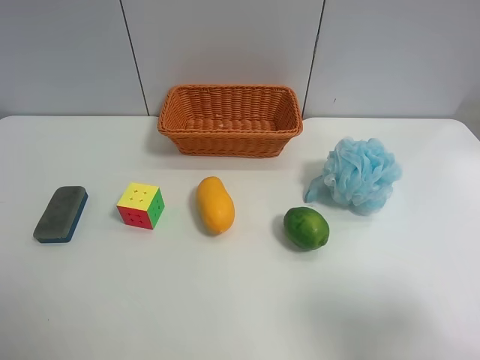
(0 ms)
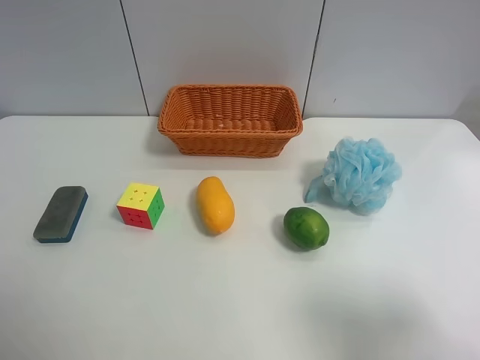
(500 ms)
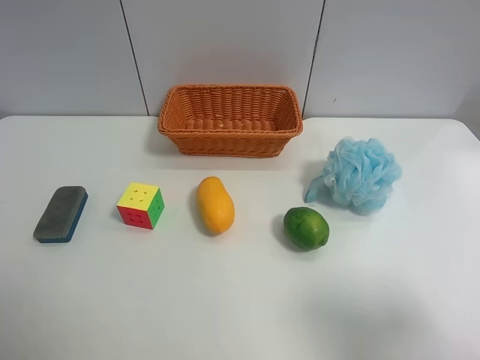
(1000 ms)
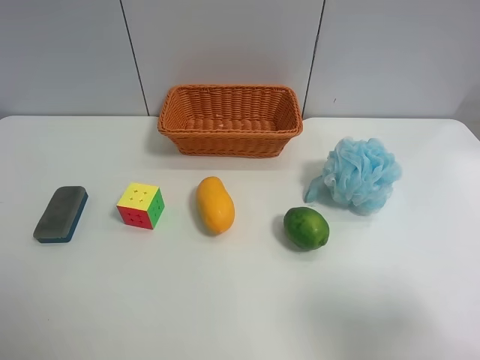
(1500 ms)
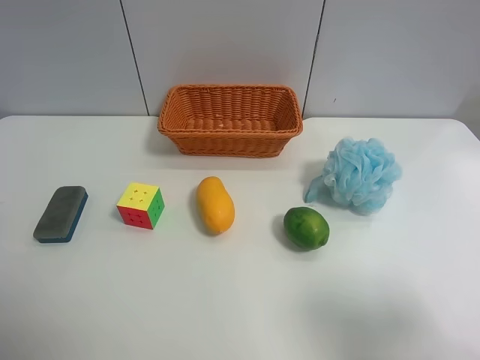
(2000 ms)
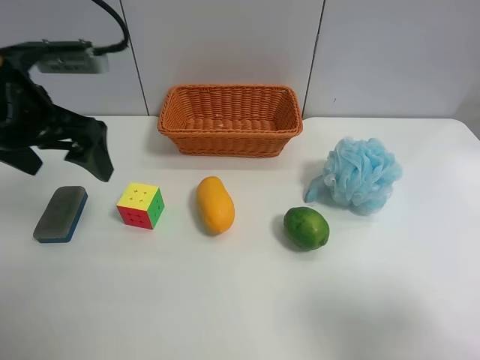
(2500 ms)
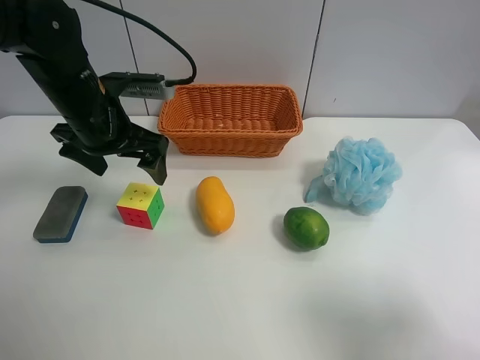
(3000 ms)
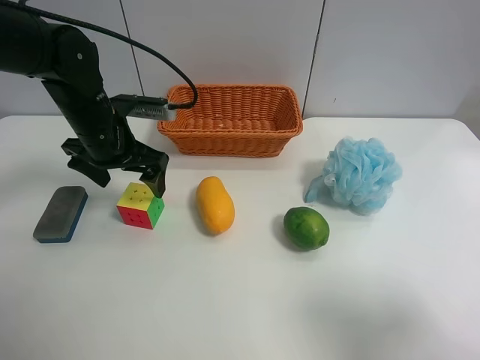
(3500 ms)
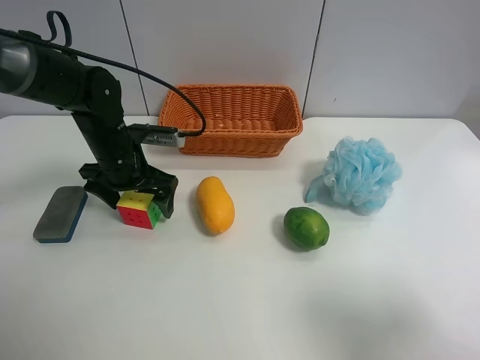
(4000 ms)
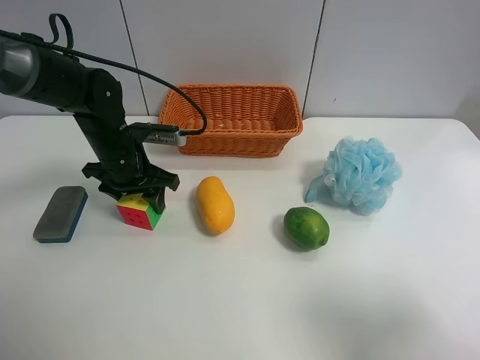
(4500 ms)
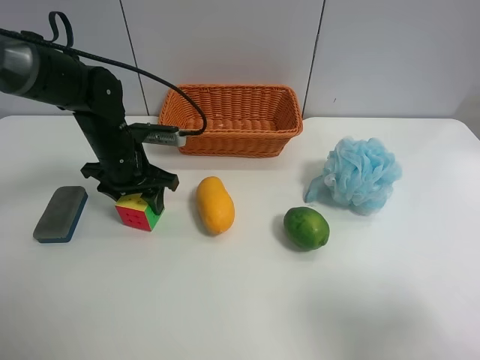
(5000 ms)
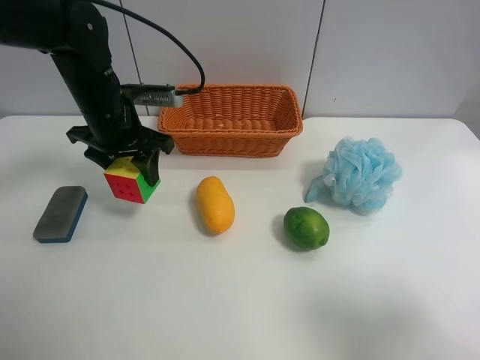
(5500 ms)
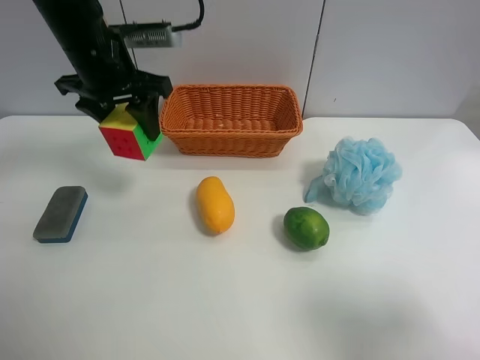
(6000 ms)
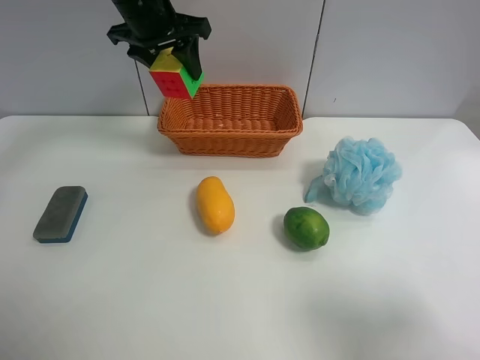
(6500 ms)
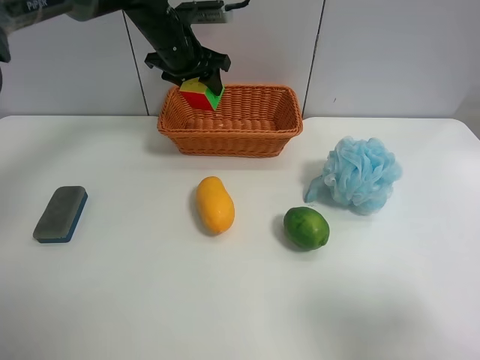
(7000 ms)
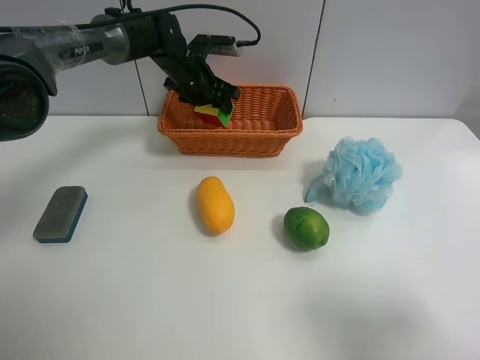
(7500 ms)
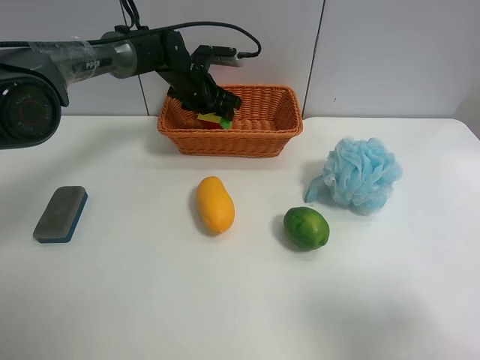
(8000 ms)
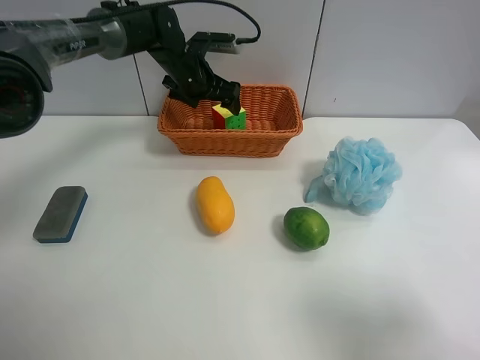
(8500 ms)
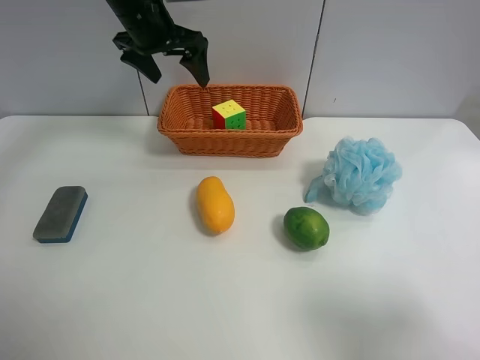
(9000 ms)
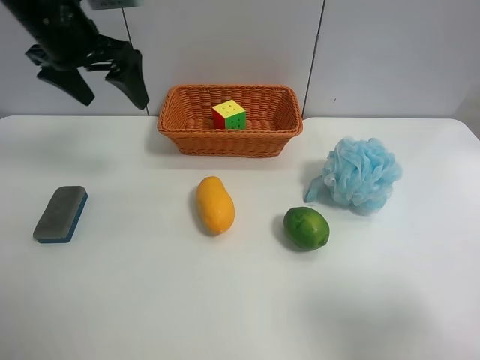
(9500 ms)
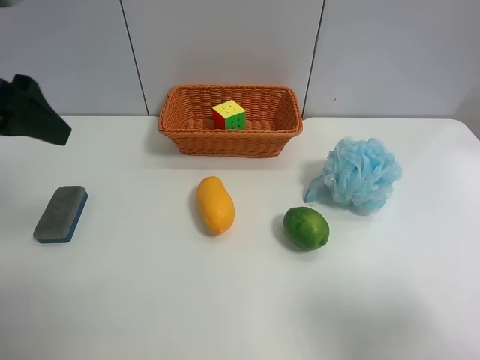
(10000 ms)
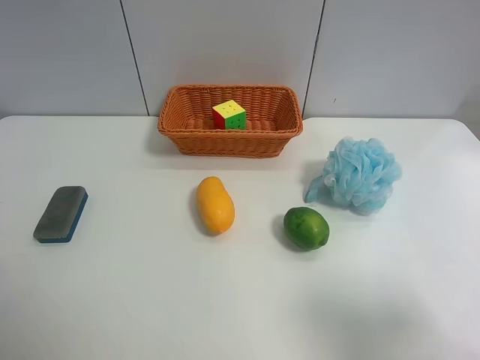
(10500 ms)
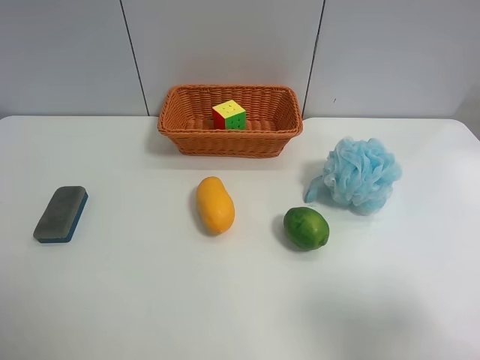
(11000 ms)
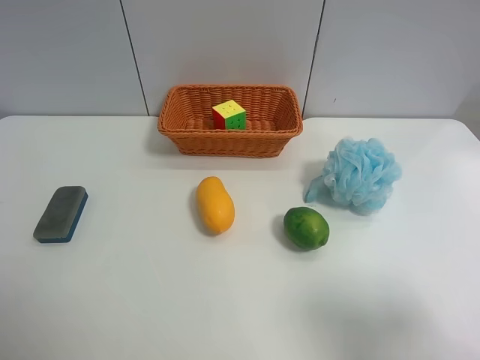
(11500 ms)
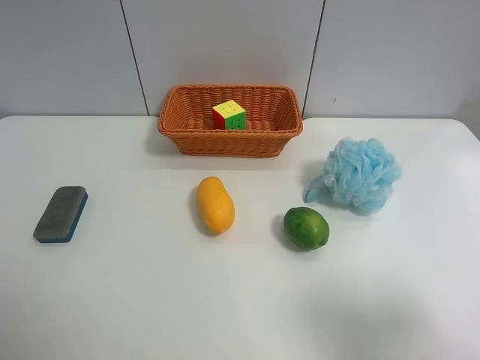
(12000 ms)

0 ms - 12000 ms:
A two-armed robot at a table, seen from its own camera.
Task of the whole recording: use the left gripper to grab items from the table and place them in the basket.
Step, 0 ms - 4500 ms: Grasp the Rubik's Cube with the left gripper.
Step, 5000 ms - 8000 ms: Place the Rubik's Cube into the basket with the left gripper.
2000 ms - 4000 ms: The left gripper shifts about 35 cm downward, forward and to the right.
4000 ms - 6000 ms: The left gripper heads upward, covering about 15 cm, and closes its fingers.
6000 ms - 8000 ms: The left gripper heads forward, downward and to the right, covering some 20 cm, and opens.
8000 ms - 10000 ms: The left gripper is displaced backward, upward and to the left by about 40 cm, and opens its fingers.
10000 ms - 12000 ms: The left gripper heads backward, covering about 20 cm.
